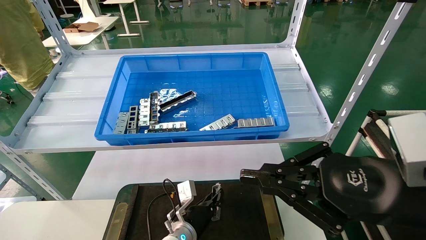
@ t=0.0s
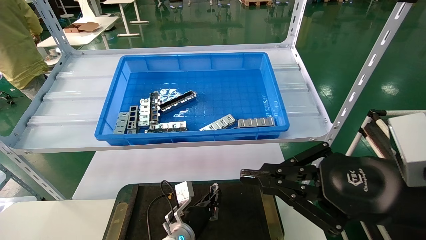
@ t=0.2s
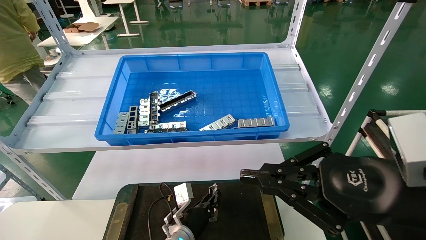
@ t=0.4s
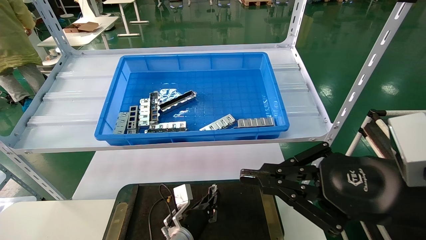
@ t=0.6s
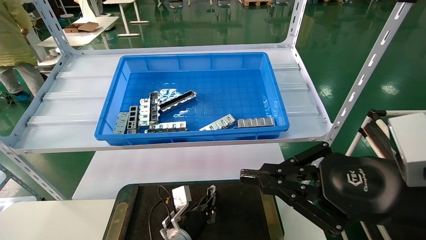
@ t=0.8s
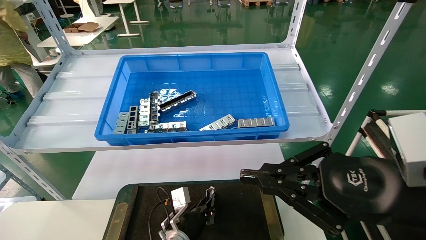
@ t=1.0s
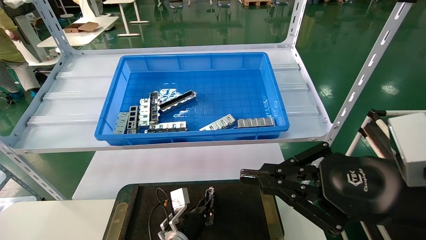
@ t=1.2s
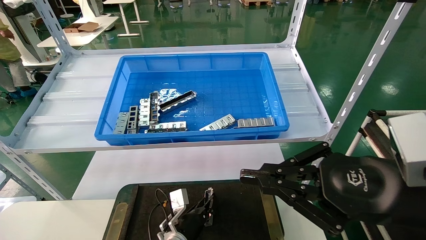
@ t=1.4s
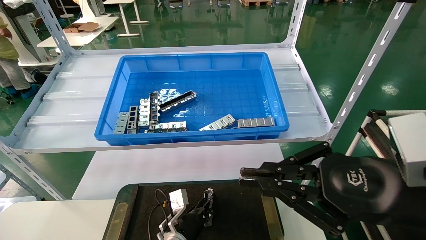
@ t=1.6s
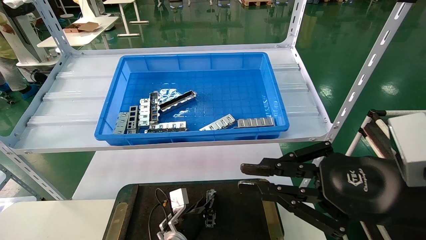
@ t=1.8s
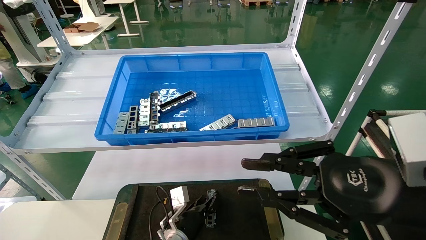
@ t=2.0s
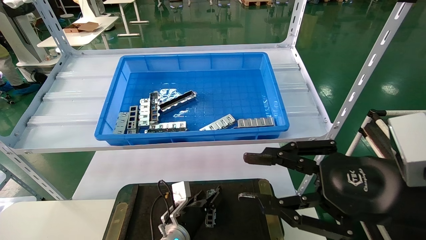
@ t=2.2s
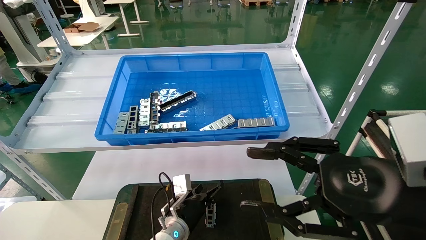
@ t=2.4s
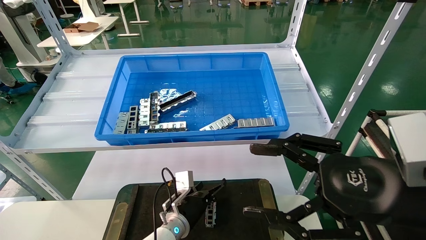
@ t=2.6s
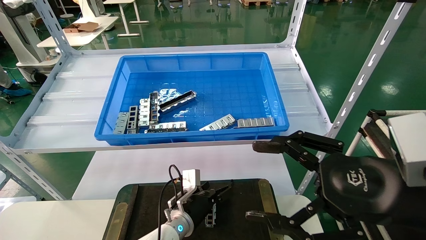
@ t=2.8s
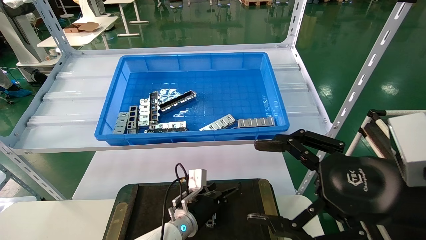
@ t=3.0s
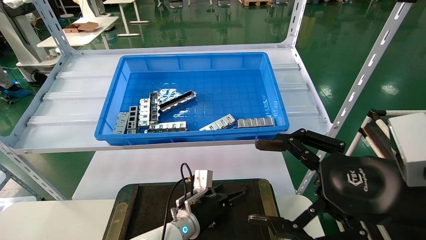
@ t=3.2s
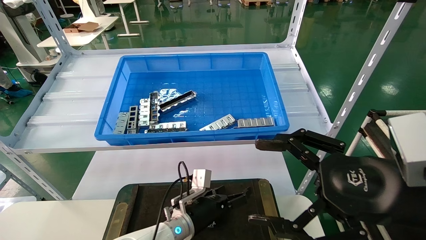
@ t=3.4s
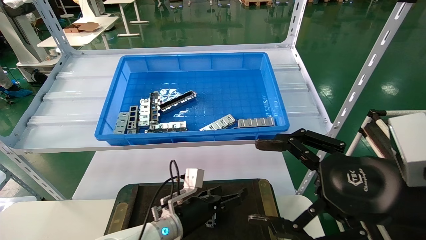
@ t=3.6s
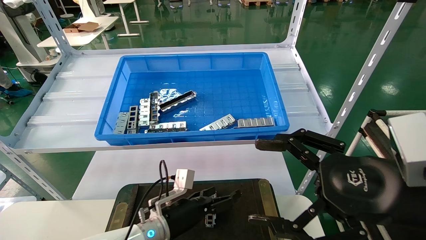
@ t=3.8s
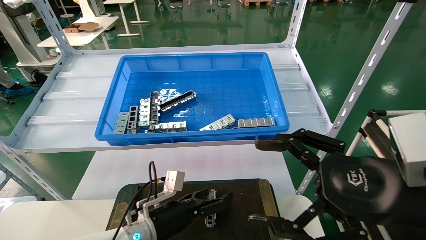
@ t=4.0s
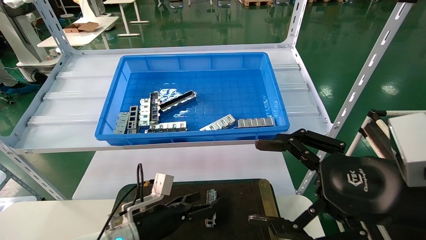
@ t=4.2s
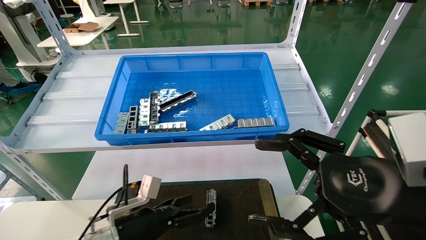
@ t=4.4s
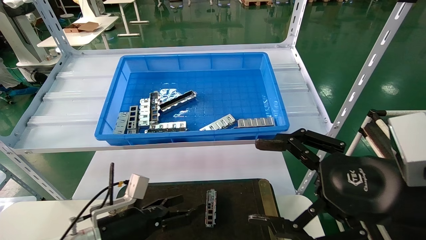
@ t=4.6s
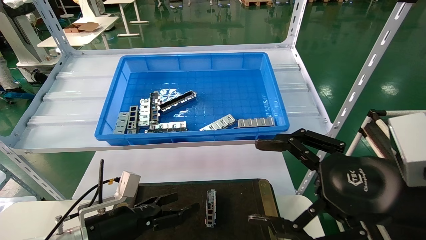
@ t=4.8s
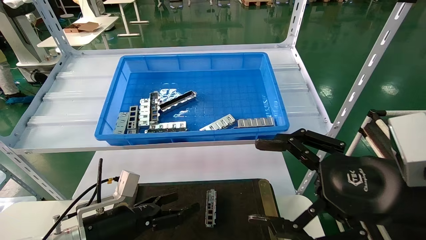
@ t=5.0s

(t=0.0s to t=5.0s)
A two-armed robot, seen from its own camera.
Task of the whole recording: Grasp the part with one hand and place it on the black container.
t=0.0s - t=1.6s: The grippers make only small movements.
t=1.6s - t=3.4s: The left gripper heads upward, covering roughly 10 cm, and opens up. The right gripper opens.
t=3.4s - t=5.0s: The left gripper is displaced to the left and backward by some 20 cm.
